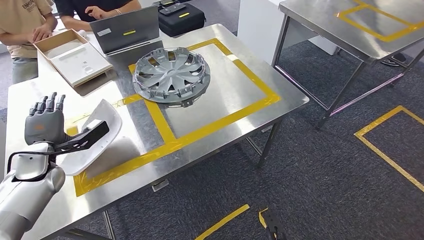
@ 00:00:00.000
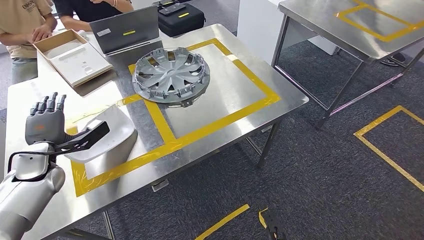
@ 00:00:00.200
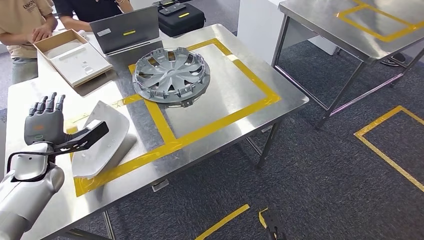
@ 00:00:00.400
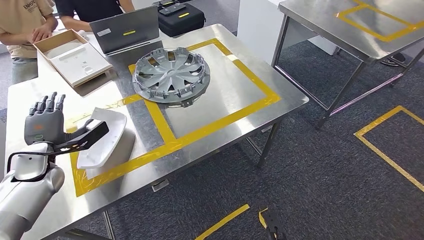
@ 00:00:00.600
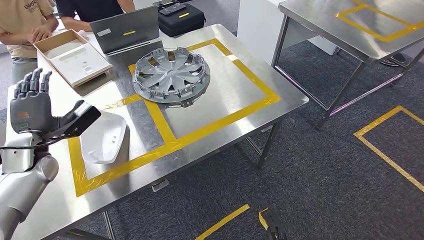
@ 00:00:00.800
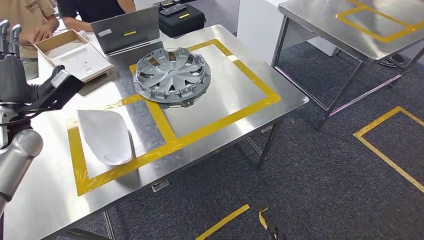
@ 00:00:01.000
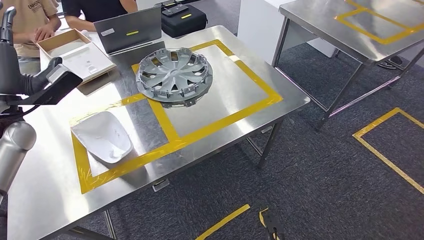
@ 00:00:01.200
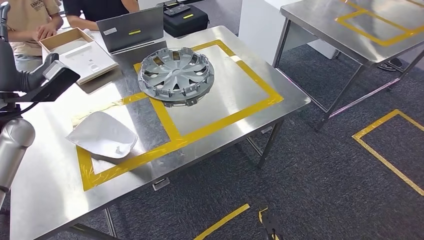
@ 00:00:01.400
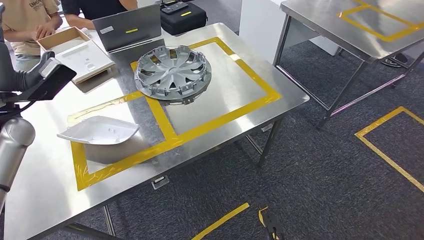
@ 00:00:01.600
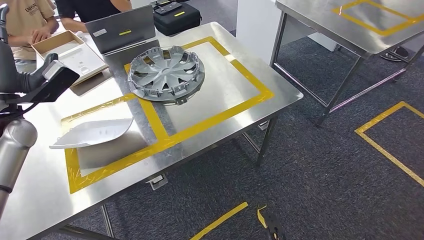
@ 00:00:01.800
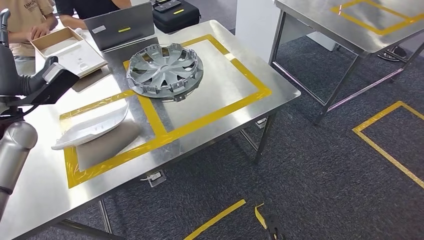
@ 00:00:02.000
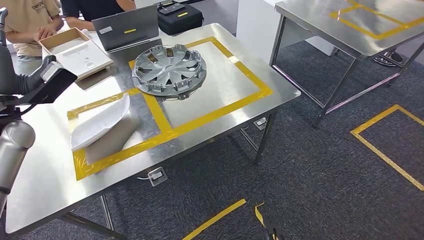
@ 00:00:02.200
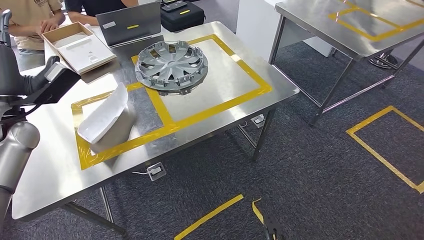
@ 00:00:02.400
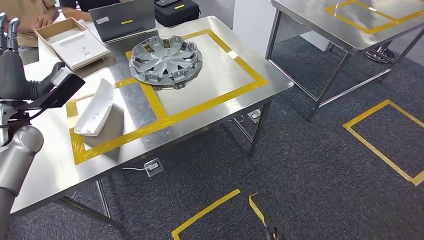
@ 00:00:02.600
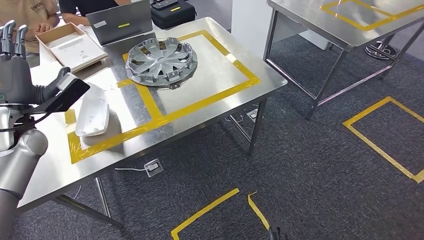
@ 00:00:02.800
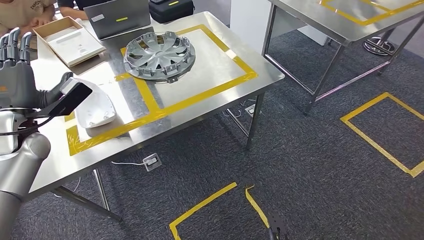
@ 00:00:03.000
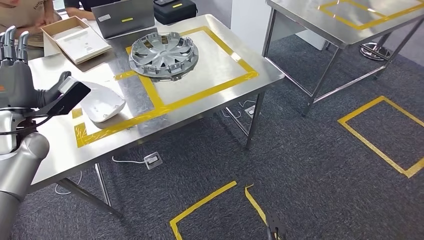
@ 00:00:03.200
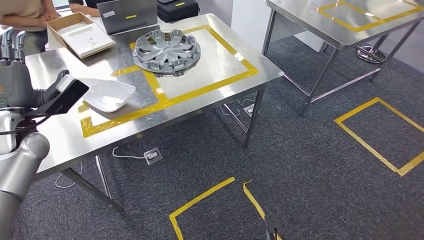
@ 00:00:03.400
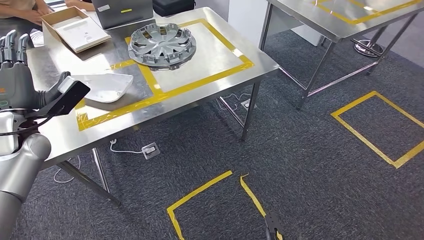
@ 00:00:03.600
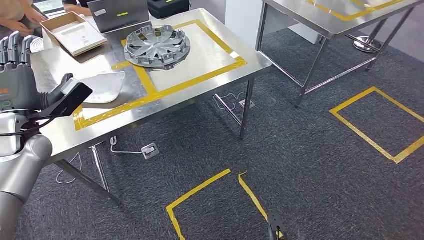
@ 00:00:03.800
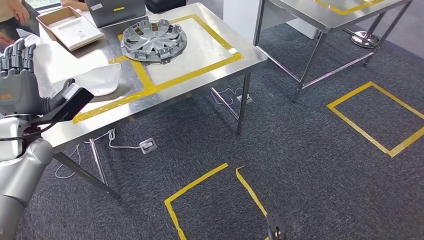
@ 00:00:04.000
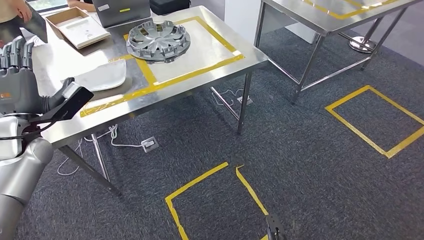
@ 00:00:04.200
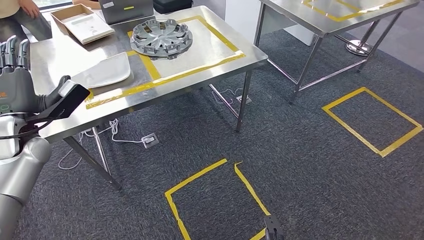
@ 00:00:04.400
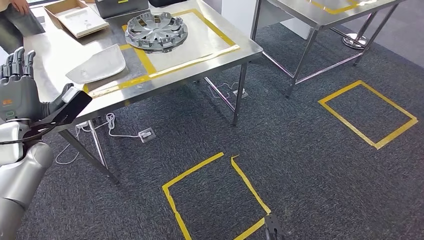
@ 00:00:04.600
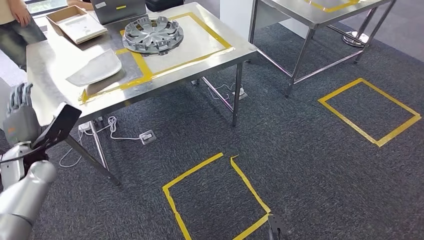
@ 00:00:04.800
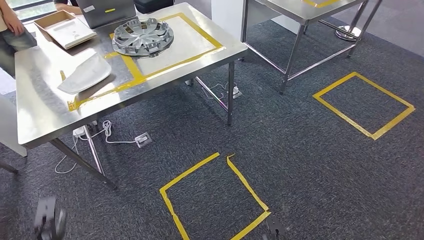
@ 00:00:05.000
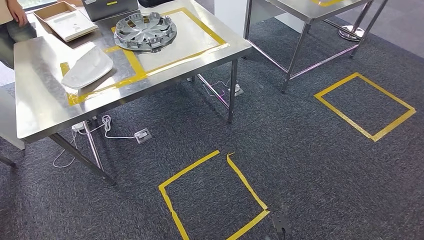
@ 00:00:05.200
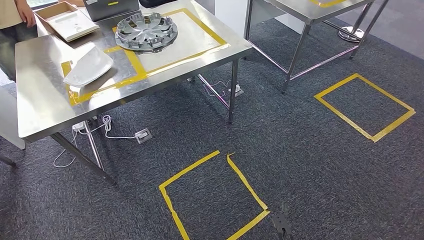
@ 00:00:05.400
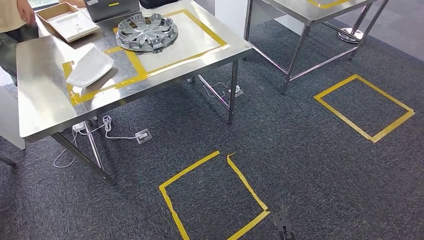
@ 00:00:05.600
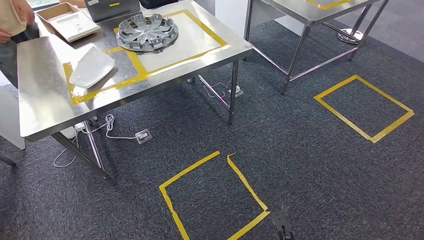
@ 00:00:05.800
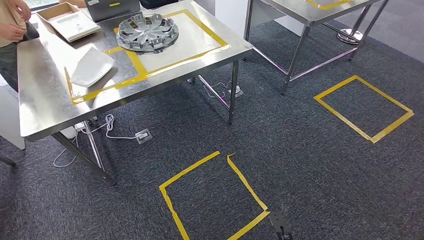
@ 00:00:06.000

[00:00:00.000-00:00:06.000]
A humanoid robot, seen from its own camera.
Step, 00:00:01.600 to 00:00:06.000: Move to the initial position of the workbench.
